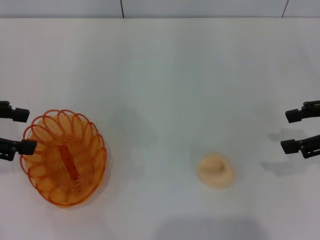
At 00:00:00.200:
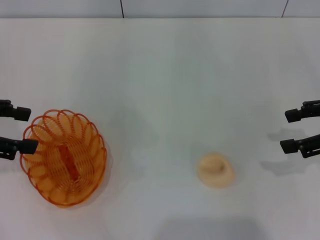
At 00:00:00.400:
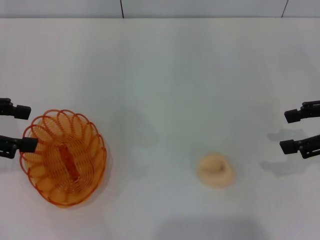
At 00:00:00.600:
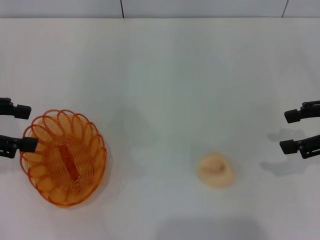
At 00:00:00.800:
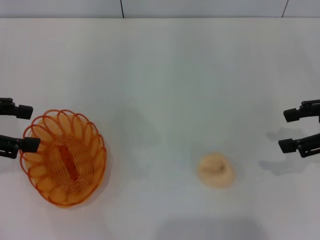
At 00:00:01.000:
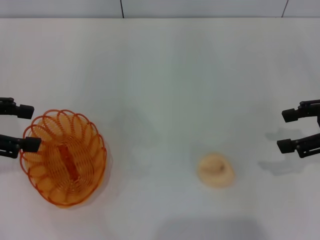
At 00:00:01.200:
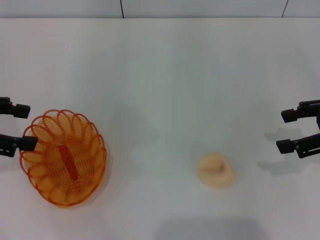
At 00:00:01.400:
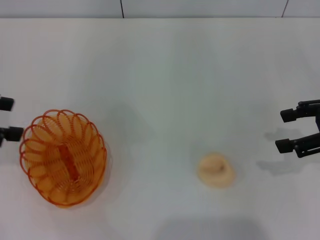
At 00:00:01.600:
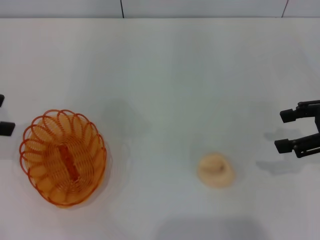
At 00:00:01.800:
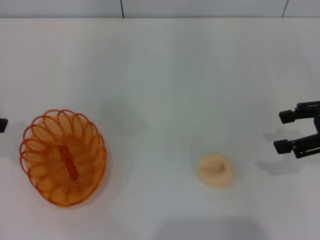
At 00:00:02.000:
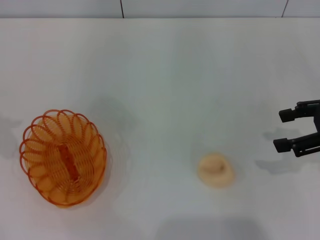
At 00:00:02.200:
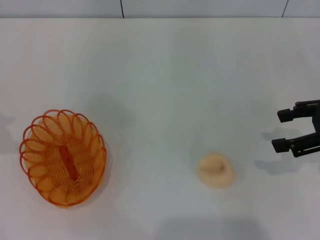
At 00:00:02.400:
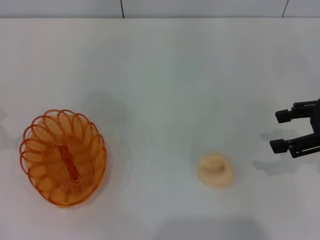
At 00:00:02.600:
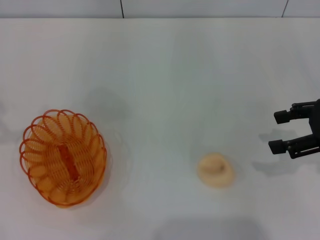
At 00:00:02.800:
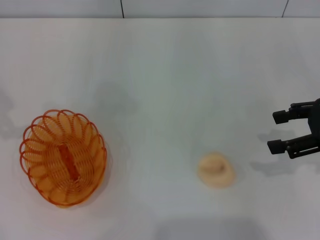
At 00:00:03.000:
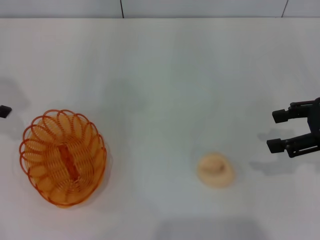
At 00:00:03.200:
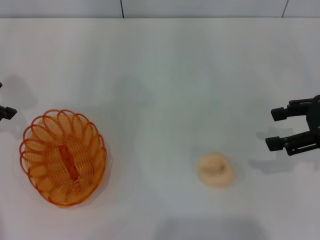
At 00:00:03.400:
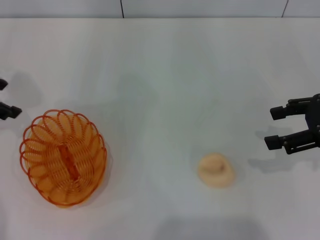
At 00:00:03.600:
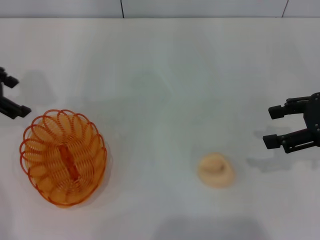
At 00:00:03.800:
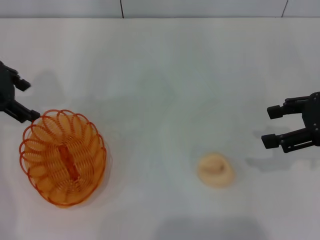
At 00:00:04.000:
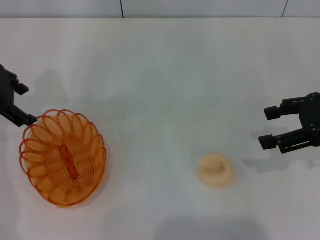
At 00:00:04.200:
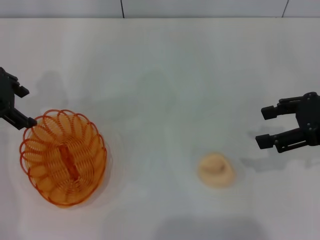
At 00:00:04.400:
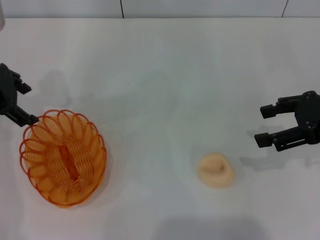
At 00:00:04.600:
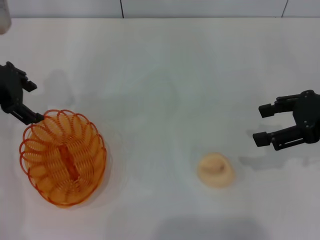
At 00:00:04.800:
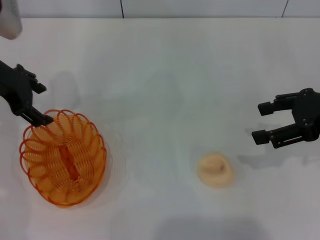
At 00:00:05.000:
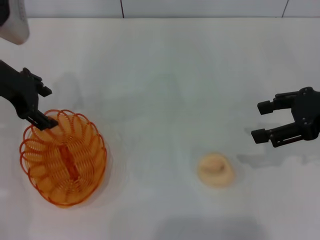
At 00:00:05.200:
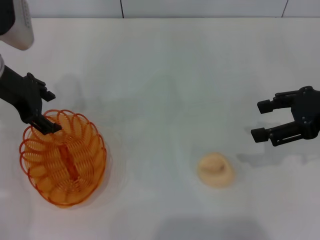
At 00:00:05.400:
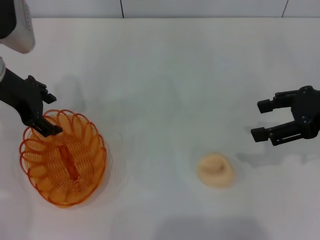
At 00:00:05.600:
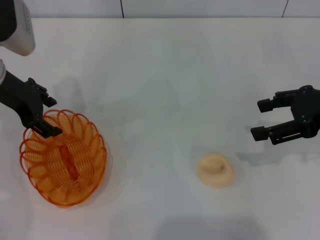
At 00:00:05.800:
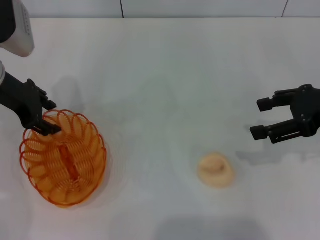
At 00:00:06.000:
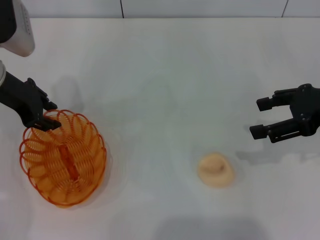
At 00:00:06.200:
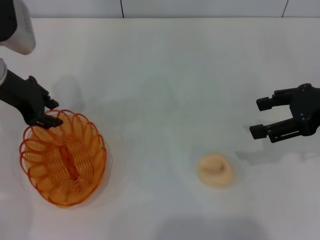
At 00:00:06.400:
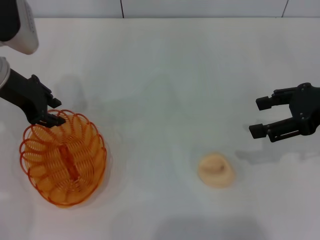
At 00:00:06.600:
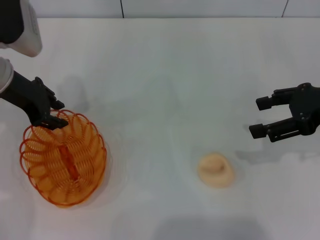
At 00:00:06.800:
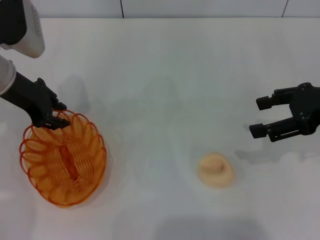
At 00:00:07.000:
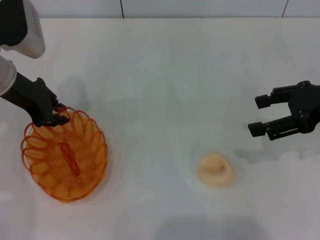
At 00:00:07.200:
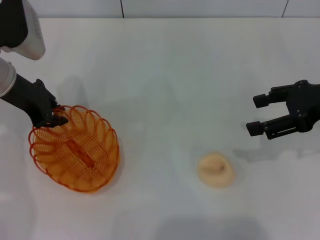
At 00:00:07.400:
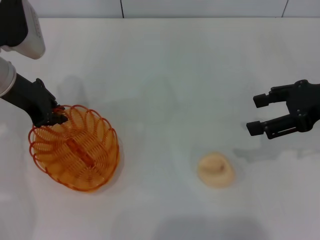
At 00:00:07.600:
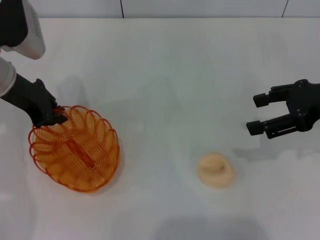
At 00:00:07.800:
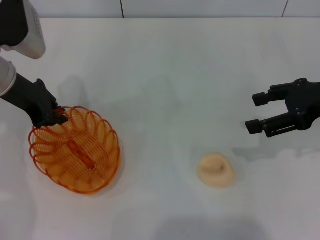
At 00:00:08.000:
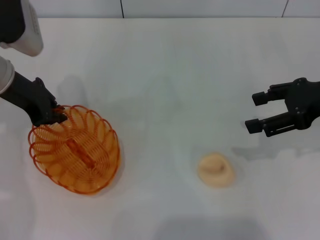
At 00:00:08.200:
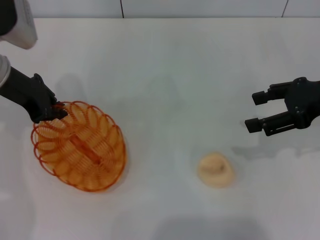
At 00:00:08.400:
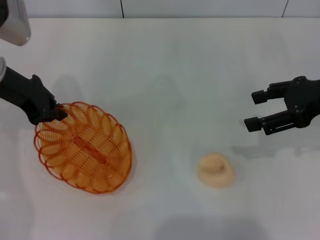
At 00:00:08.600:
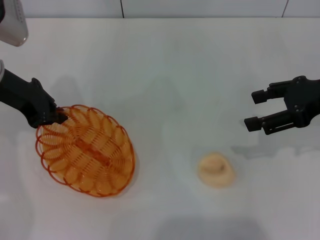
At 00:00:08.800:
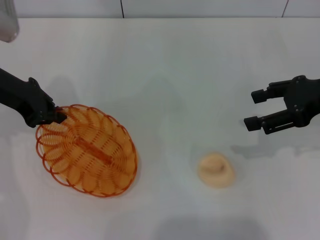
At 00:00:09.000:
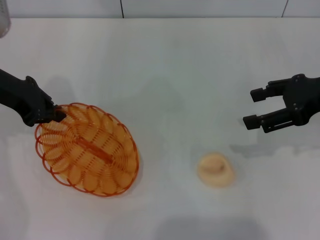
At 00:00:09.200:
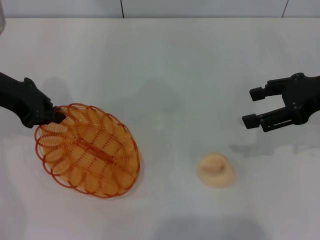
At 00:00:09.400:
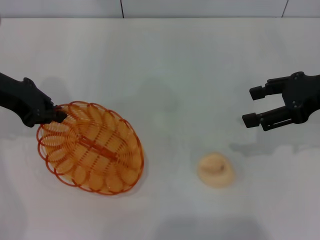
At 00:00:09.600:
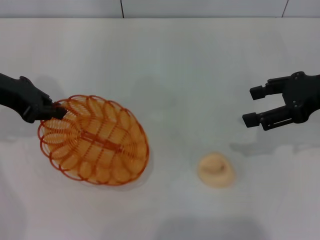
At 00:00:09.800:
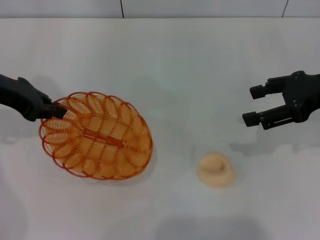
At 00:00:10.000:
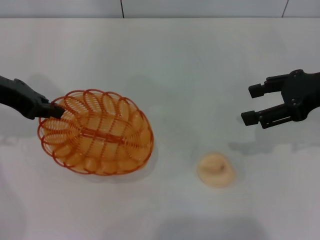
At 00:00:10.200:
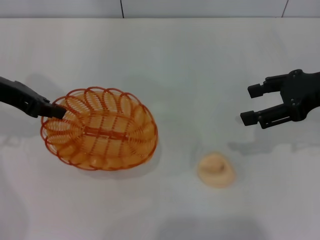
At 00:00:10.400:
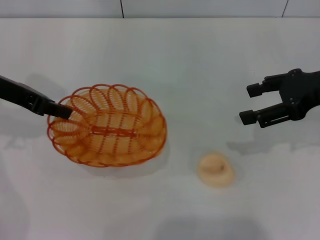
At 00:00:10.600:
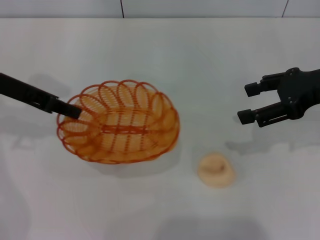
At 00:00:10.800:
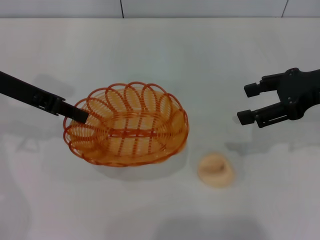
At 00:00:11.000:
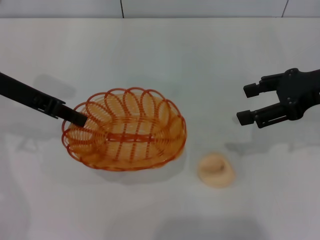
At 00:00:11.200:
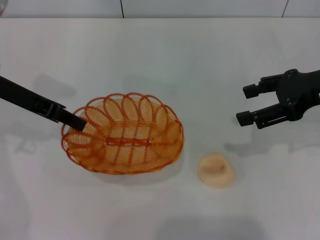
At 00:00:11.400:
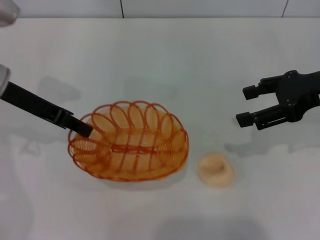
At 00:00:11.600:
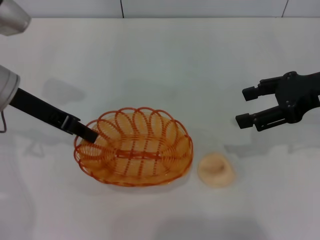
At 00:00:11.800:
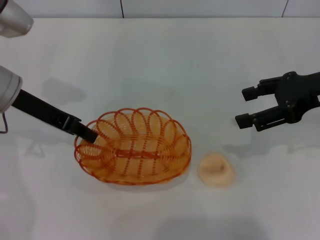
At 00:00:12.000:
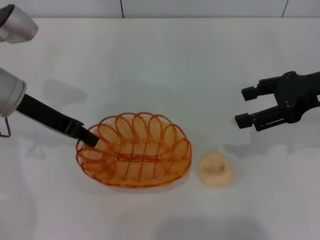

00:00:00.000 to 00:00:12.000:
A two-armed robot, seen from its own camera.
Step, 00:00:00.000 to 00:00:09.400: Pick up the basket with the left gripper.
00:00:00.000 to 00:00:01.600: The grippers make only small movements.
00:00:03.000 to 00:00:04.400: The left gripper is displaced to the right by roughly 5 cm.
00:00:04.400 to 00:00:06.000: The grippers stay close to where they were, moving slightly.
00:00:06.000 to 00:00:07.600: The left gripper closes its fingers.
00:00:07.600 to 00:00:09.000: The grippers stay close to where they were, moving slightly.
00:00:10.400 to 00:00:12.000: The left gripper moves roughly 5 cm.

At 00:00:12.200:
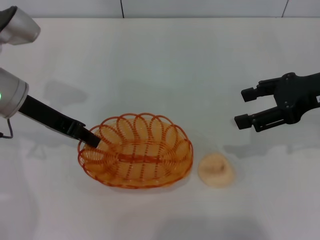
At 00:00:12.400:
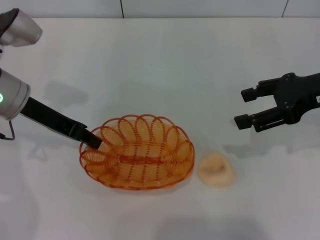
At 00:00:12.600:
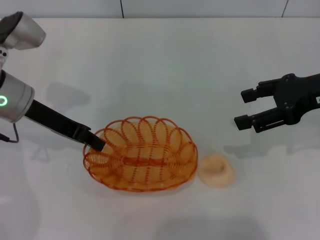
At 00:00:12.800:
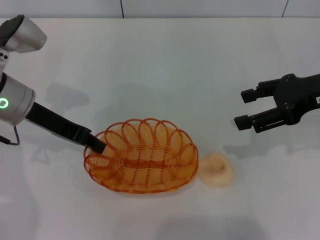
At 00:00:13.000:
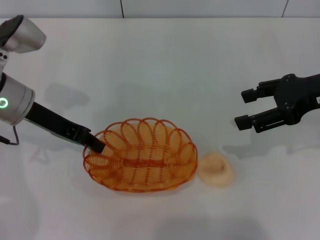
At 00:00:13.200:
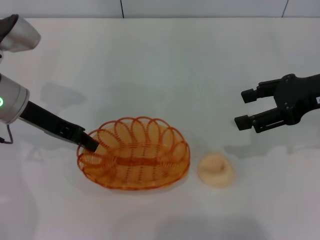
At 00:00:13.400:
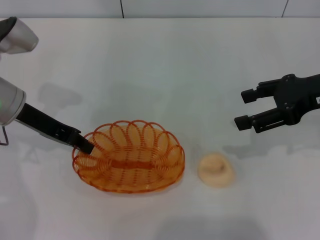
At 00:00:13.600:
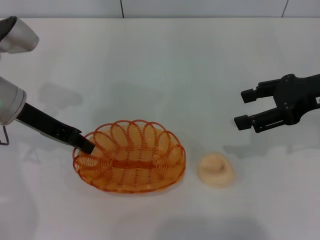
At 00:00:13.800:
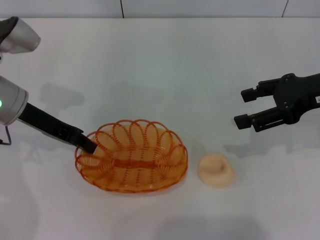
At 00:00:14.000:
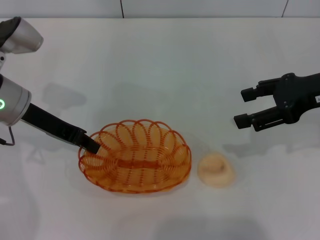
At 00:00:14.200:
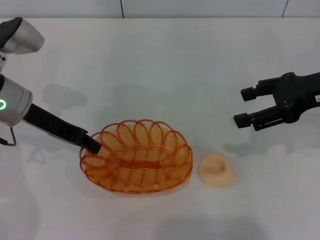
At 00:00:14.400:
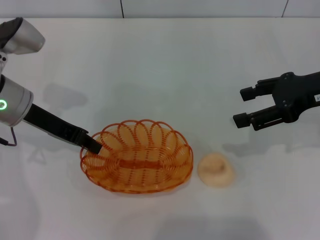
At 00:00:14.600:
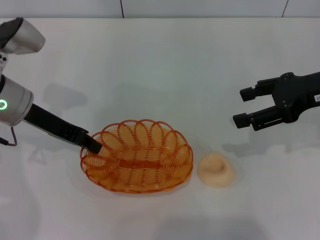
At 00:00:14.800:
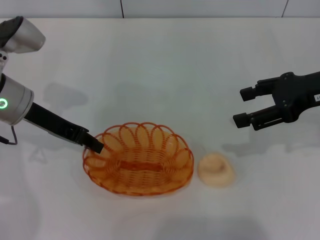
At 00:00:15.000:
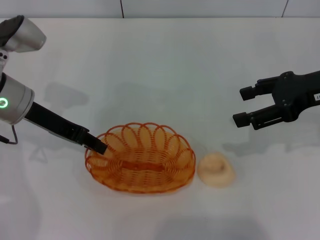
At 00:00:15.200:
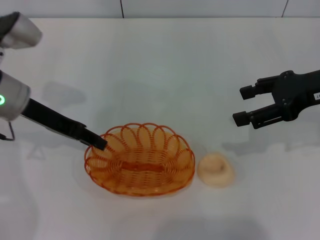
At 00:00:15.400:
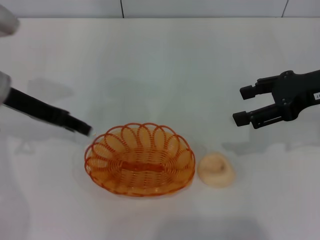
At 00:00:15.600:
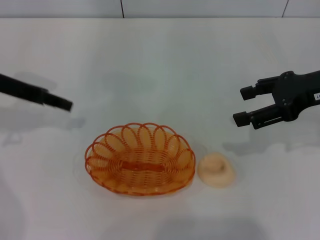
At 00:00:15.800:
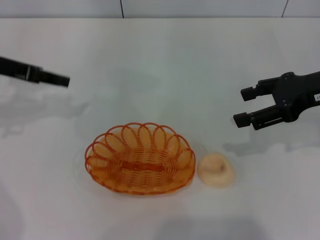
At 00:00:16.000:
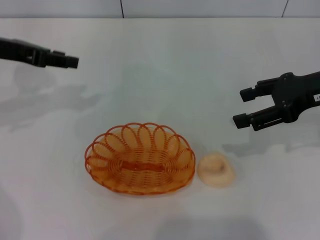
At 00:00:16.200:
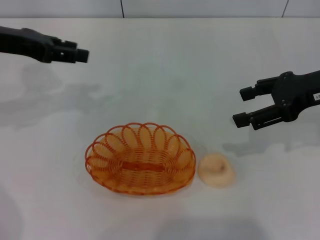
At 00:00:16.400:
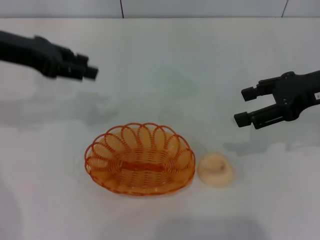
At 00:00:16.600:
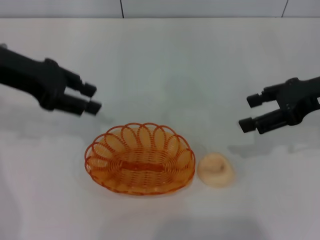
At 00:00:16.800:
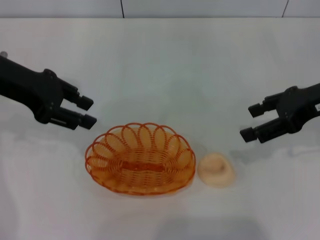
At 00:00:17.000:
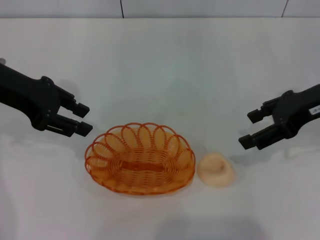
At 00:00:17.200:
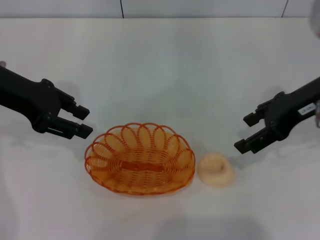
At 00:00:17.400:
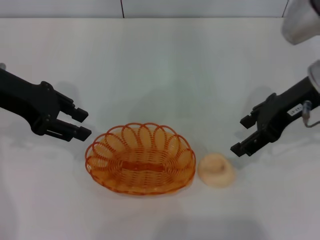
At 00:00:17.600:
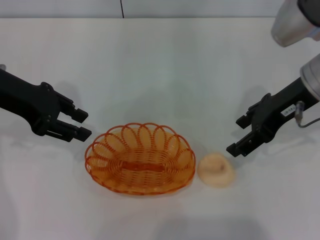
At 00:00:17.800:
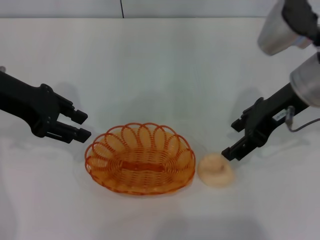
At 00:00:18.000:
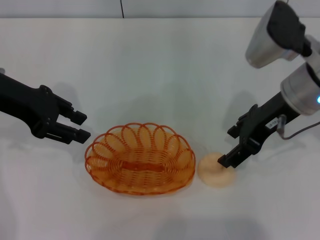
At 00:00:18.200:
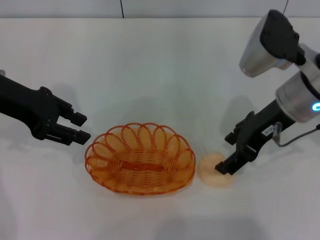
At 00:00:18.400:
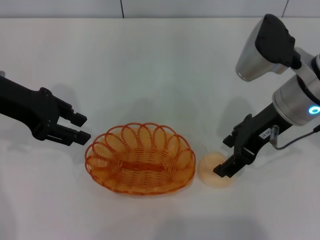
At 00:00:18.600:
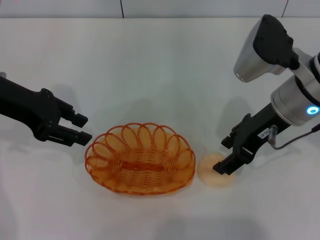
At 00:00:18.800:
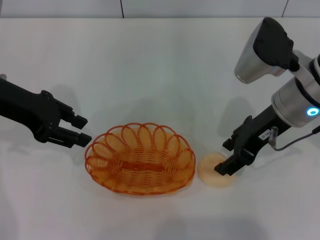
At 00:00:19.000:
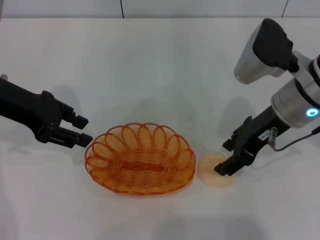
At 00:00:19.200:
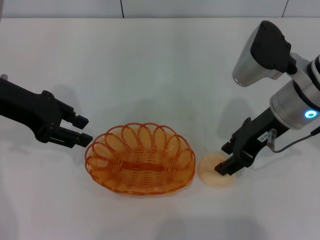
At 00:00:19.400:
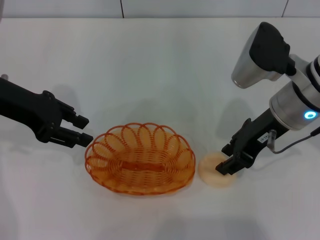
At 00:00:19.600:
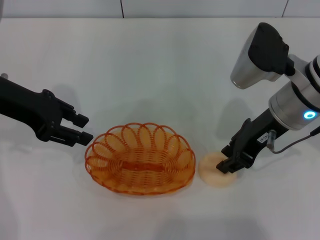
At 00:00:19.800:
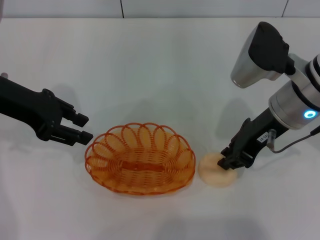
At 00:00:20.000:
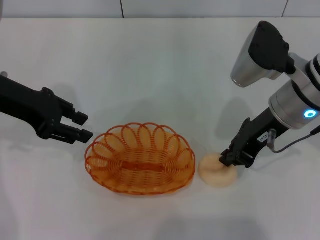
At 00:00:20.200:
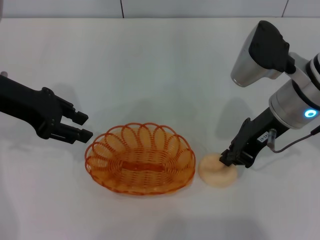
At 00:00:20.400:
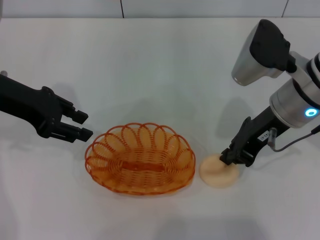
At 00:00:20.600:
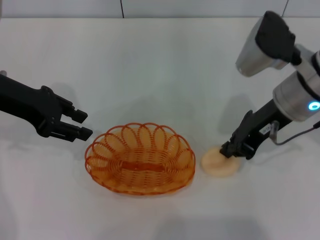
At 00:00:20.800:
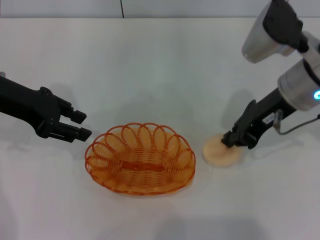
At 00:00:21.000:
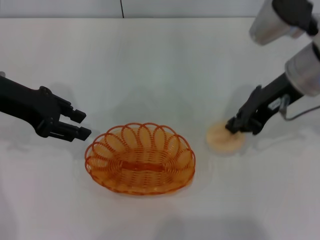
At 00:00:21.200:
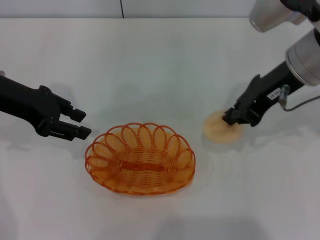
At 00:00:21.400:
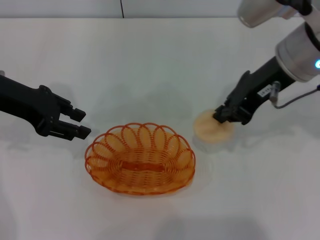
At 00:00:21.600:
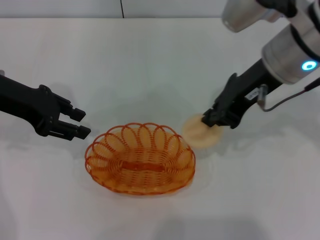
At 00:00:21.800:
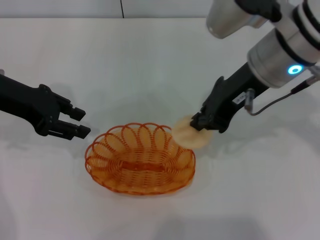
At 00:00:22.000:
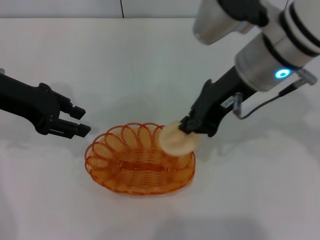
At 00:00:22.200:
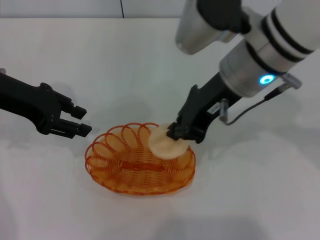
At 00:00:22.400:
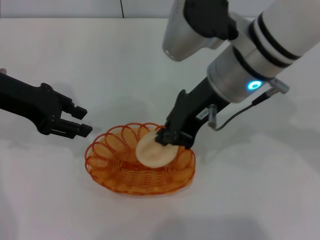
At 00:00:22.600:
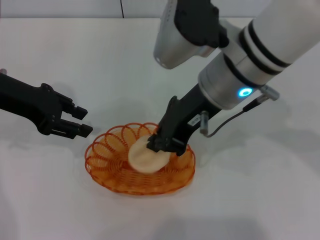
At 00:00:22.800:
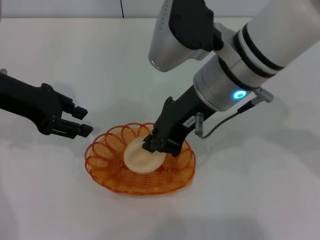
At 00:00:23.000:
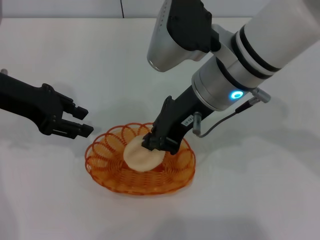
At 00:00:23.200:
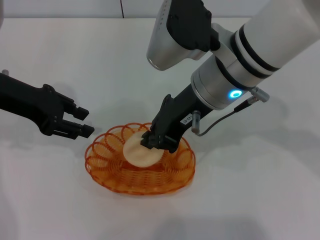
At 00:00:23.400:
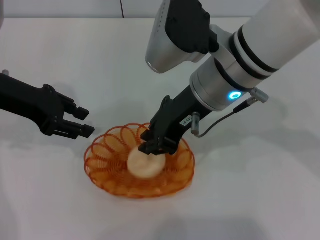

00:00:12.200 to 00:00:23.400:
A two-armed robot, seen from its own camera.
Step, 00:00:12.200 to 00:00:17.200: Place the basket in the center of view with the left gripper.
Step, 00:00:17.400 to 00:00:21.600: Pick up the egg yolk pastry with the right gripper.
00:00:12.200 to 00:00:13.800: Both grippers stay about where they are.
00:00:13.800 to 00:00:15.400: The left gripper opens.
00:00:15.400 to 00:00:17.000: The left gripper heads upward, covering some 5 cm.
00:00:17.000 to 00:00:18.600: The right gripper travels to the left by approximately 10 cm.
00:00:18.600 to 00:00:20.200: The right gripper closes up.
00:00:20.200 to 00:00:21.800: The right gripper heads upward, covering some 5 cm.
00:00:21.800 to 00:00:23.400: The right gripper travels to the left by approximately 5 cm.
